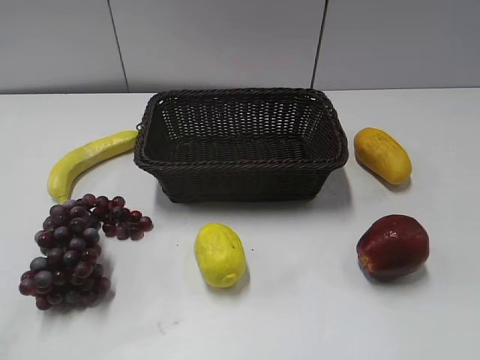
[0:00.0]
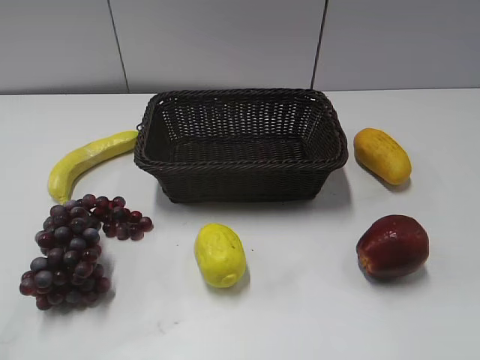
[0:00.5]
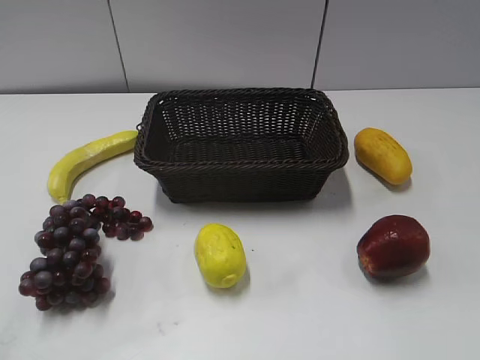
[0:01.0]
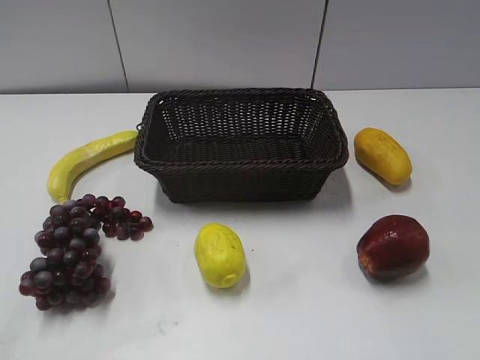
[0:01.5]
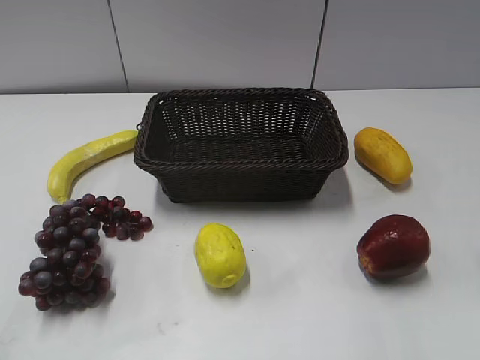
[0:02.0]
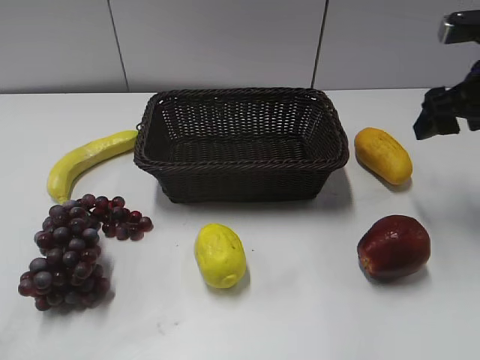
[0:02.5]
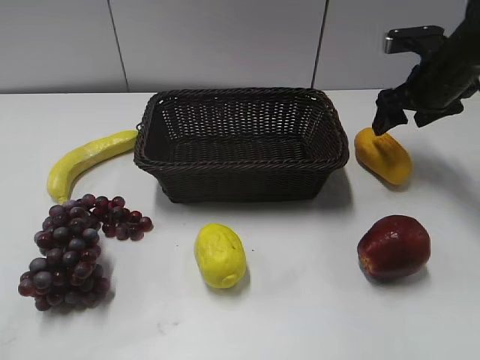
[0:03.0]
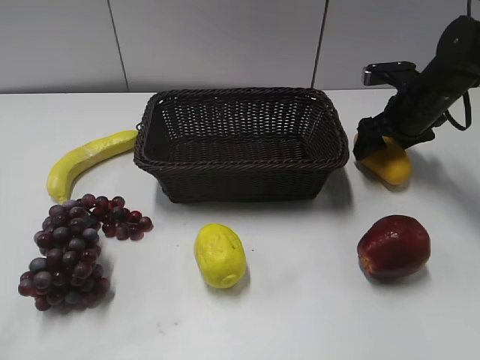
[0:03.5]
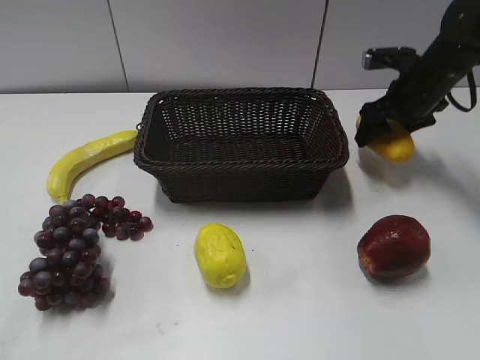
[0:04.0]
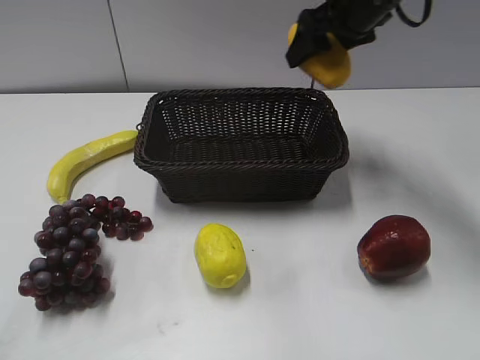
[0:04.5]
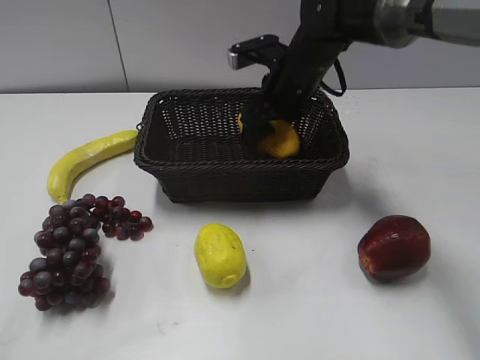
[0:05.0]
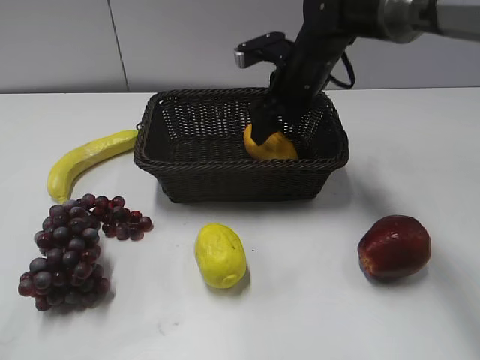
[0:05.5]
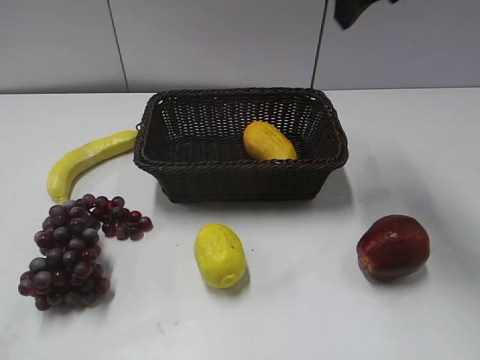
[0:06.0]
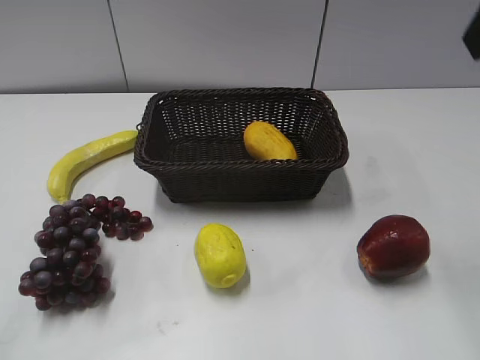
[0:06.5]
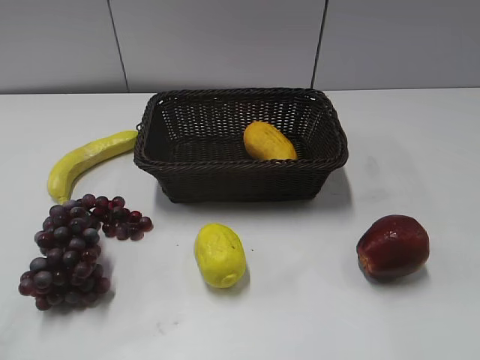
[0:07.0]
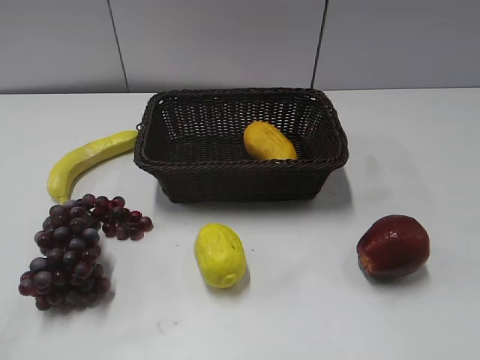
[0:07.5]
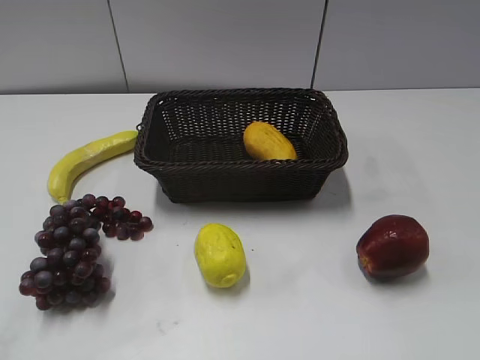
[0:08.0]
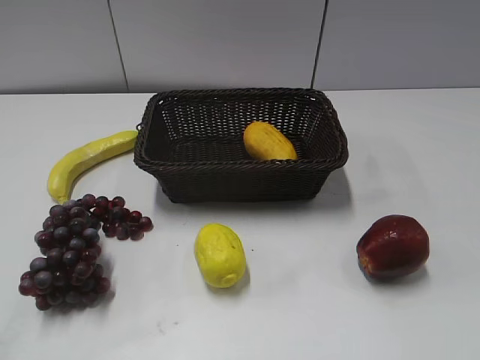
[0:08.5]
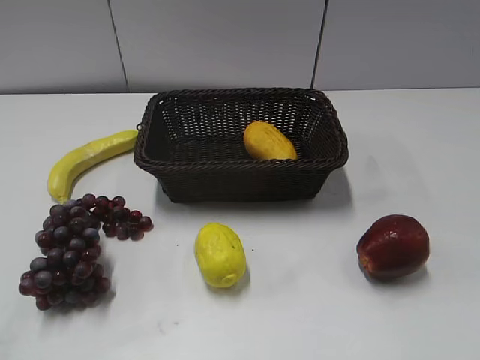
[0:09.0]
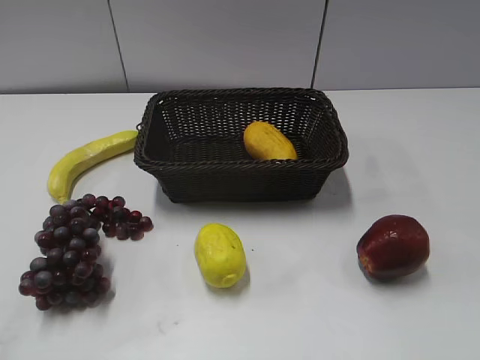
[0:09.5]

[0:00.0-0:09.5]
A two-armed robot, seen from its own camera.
Step, 0:02.5 to 0:03.5: Grasp the mango with right gripper.
Step, 0:04.0 to 0:05.0: Place the mango in the basket with right gripper.
0:02.0 to 0:04.0: The right gripper goes roughly 30 cm forward and downward.
0:04.0 to 0:05.5: The right gripper is displaced to the left by roughly 15 cm.
0:05.5 to 0:07.5: The right gripper shifts some 50 cm backward and to the right.
